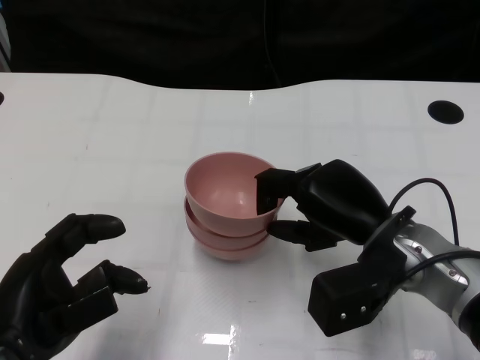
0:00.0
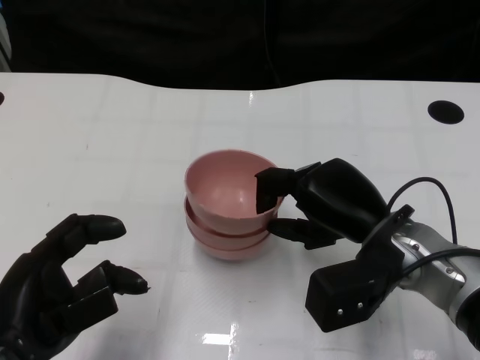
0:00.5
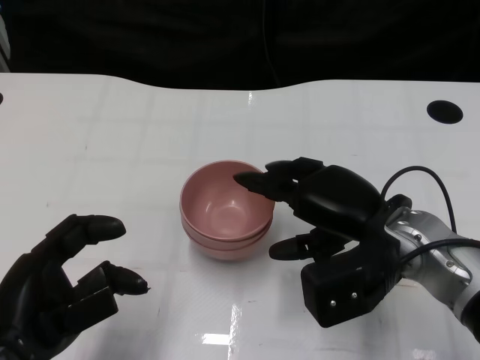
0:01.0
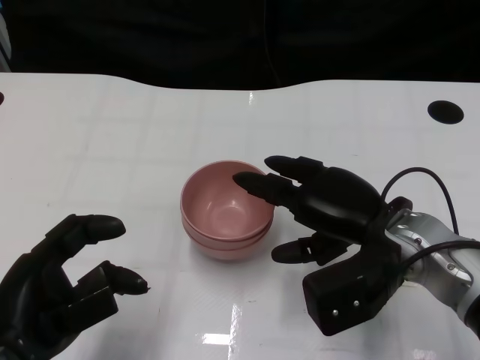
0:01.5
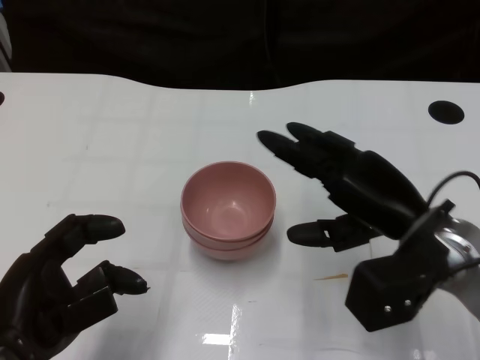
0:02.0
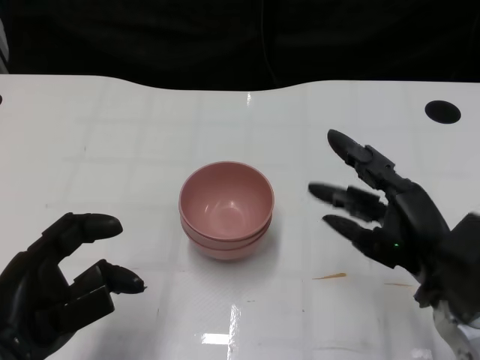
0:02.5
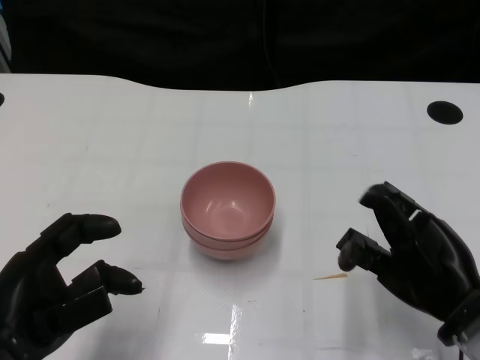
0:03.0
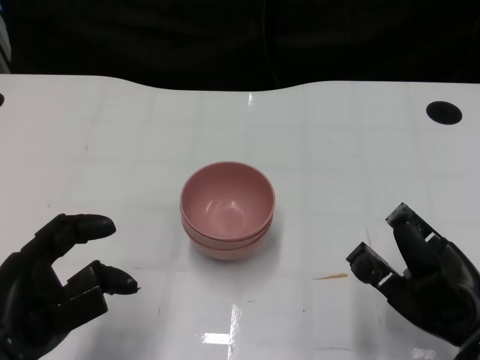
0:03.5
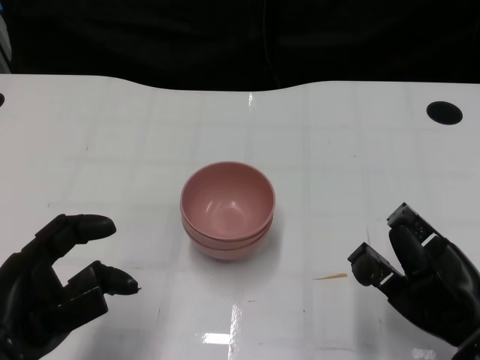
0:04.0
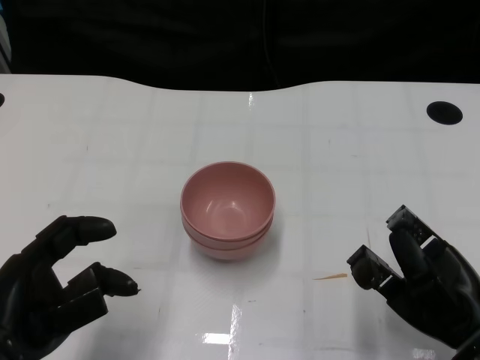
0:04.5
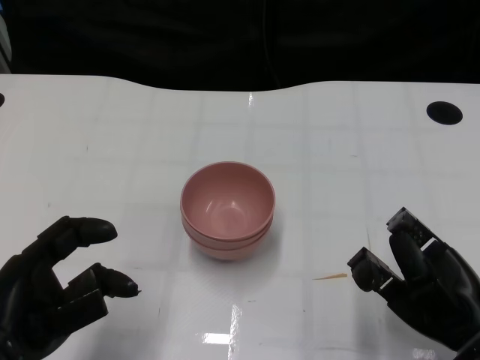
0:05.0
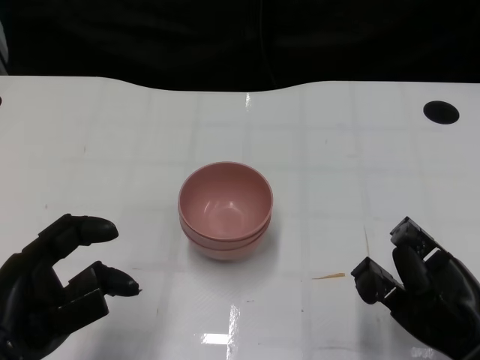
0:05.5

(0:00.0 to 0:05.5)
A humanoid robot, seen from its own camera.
Task of the whole recording: Pick up the bowl on one side of the table and place it on top of the middle bowl, then pick up the bowl on the other side of the table and place it on top of the middle bowls.
0:00.0 - 0:02.0: The hands move only a little.
0:02.0 - 0:03.5: The right hand moves backward, to the right and downward, some 10 cm.
0:03.5 - 0:05.5: The hands stay close to where they were, moving slightly.
